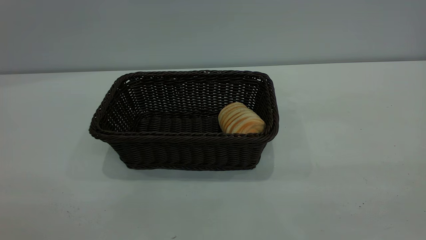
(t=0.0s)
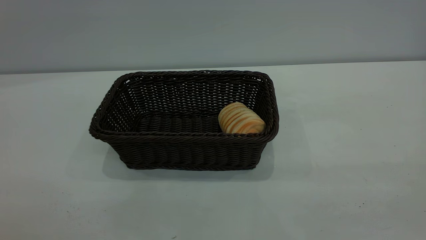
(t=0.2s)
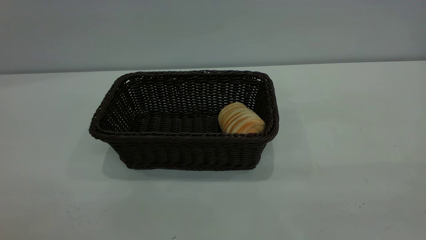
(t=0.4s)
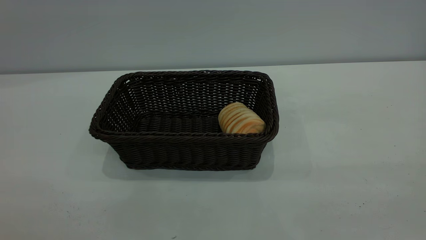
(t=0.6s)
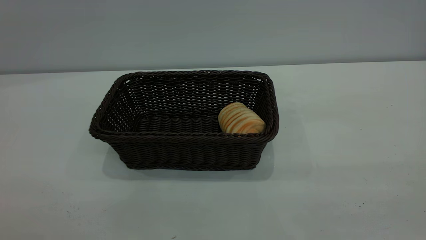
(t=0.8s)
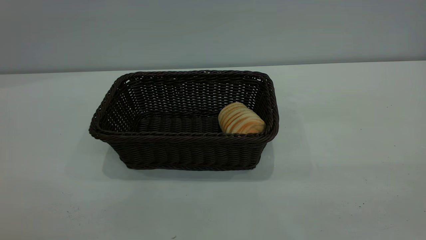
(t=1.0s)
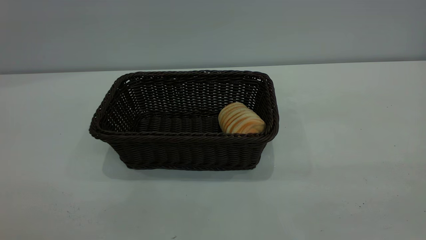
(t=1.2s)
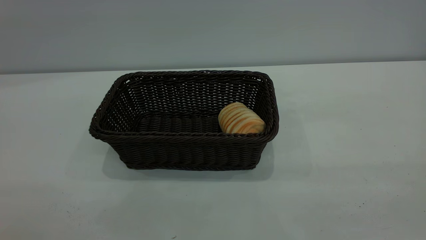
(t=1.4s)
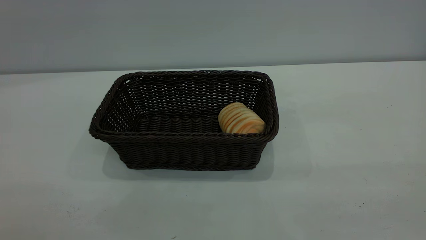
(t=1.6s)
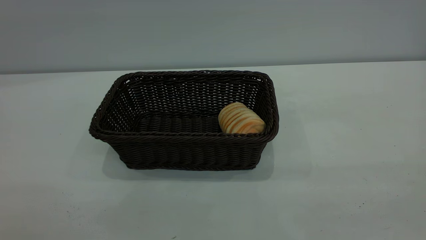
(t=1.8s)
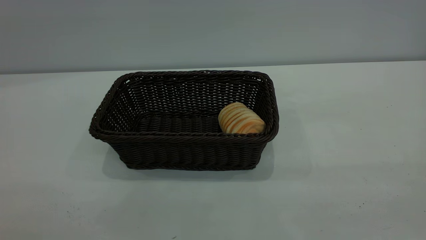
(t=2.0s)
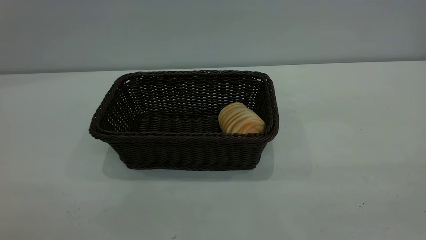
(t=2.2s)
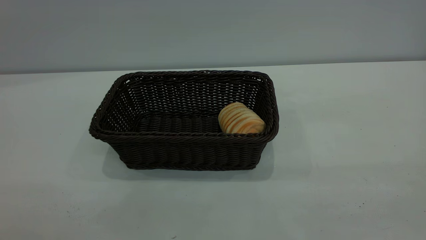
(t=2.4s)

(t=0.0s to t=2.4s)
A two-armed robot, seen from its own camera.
Task of the whole recording: One hand grasps the black basket and places it in the middle of the table, while the other hand picks up the long bread and puts it into the black basket.
t=1.2s - t=2.4s: Both grippers stay about where they are.

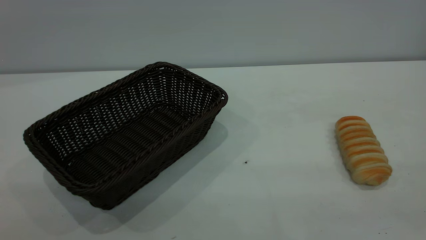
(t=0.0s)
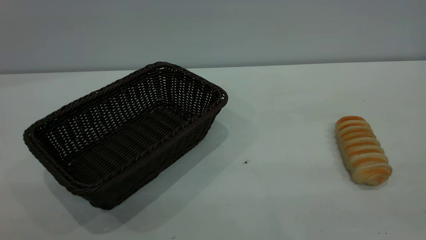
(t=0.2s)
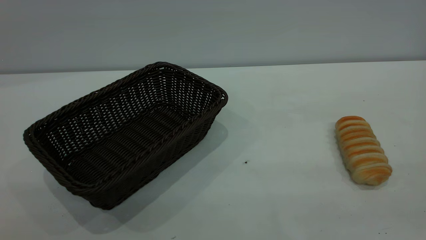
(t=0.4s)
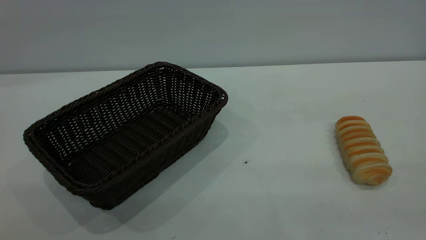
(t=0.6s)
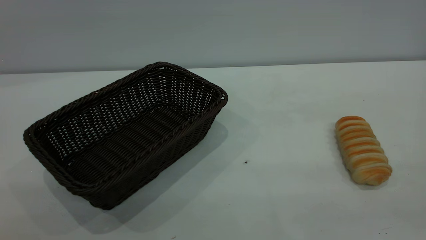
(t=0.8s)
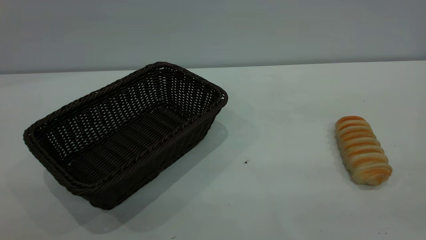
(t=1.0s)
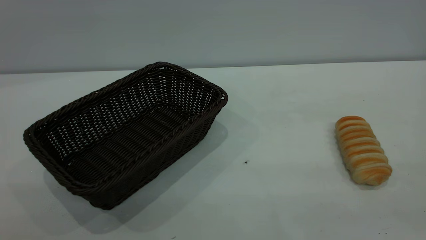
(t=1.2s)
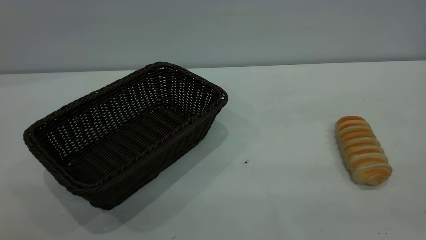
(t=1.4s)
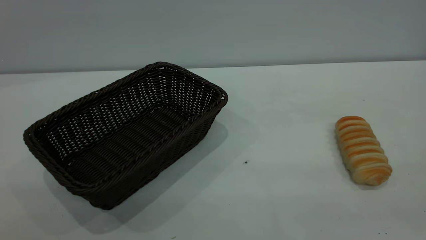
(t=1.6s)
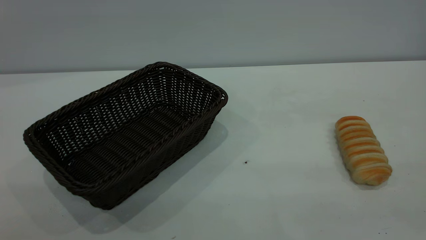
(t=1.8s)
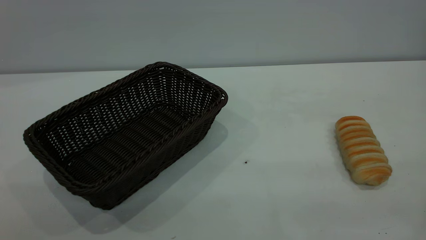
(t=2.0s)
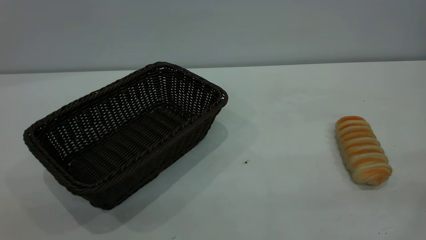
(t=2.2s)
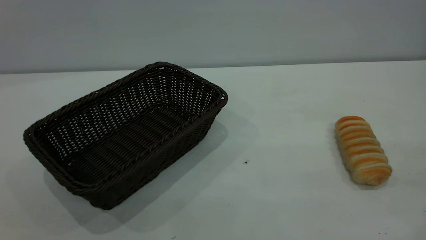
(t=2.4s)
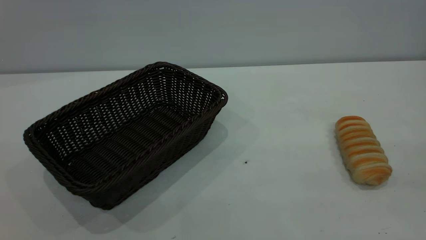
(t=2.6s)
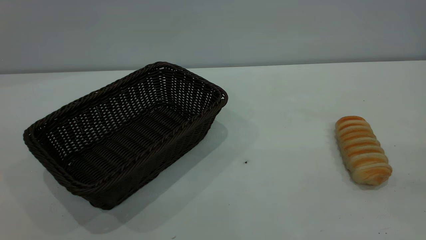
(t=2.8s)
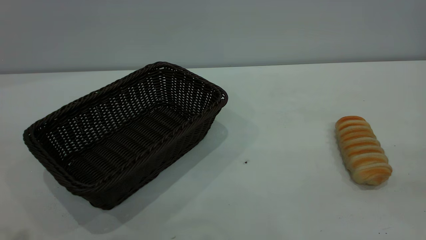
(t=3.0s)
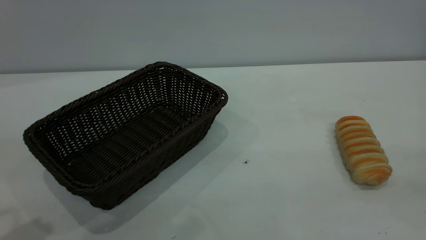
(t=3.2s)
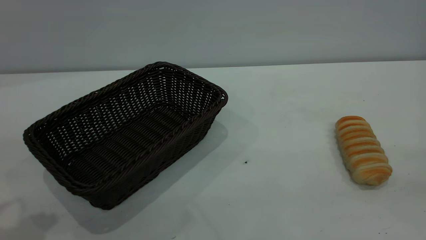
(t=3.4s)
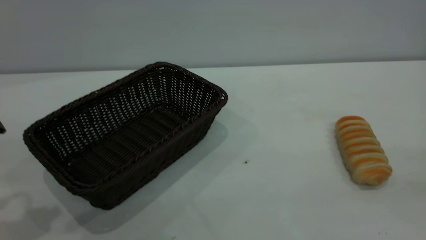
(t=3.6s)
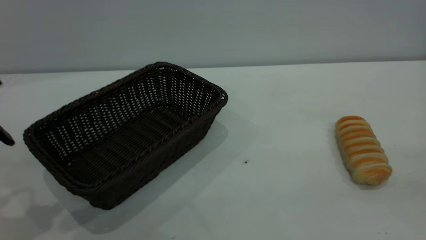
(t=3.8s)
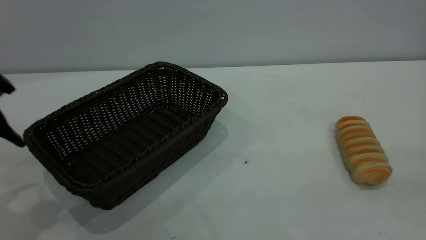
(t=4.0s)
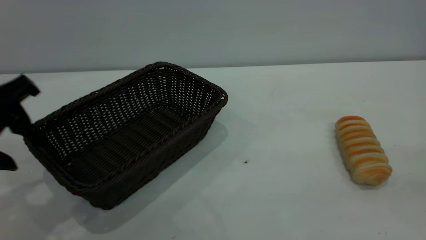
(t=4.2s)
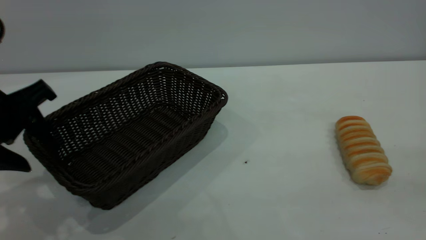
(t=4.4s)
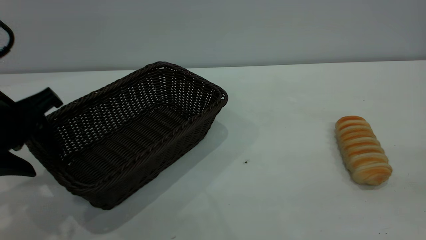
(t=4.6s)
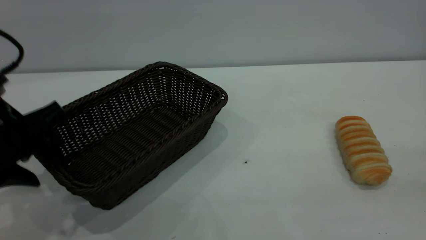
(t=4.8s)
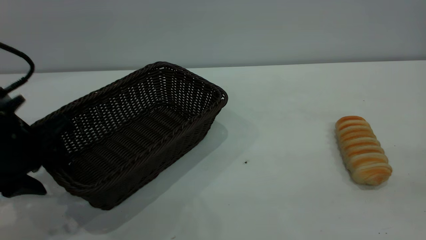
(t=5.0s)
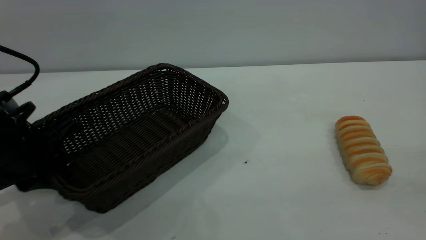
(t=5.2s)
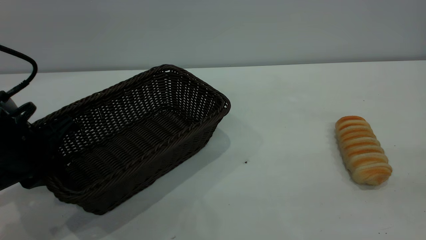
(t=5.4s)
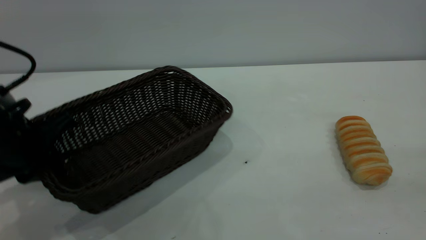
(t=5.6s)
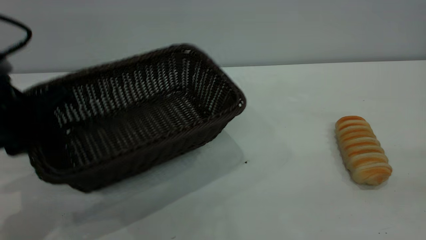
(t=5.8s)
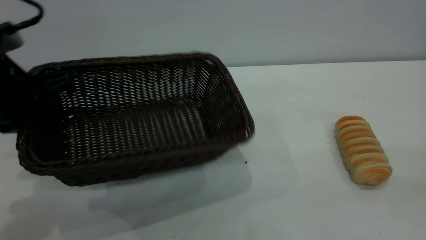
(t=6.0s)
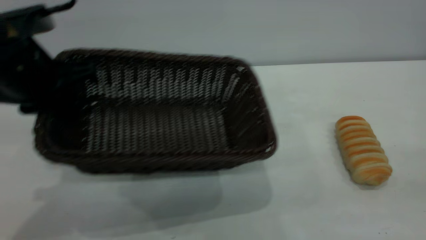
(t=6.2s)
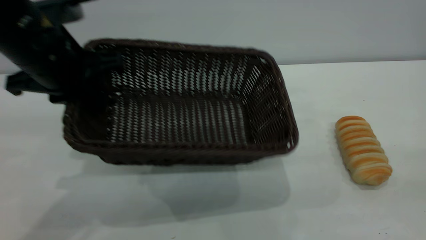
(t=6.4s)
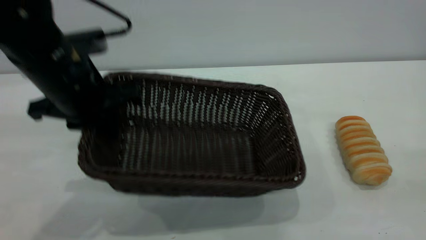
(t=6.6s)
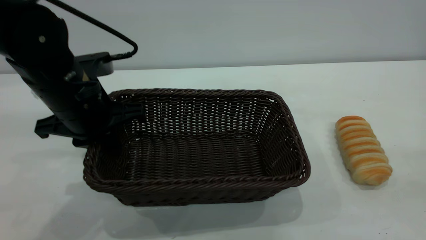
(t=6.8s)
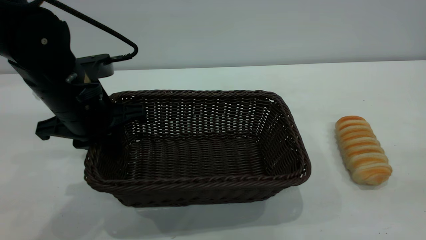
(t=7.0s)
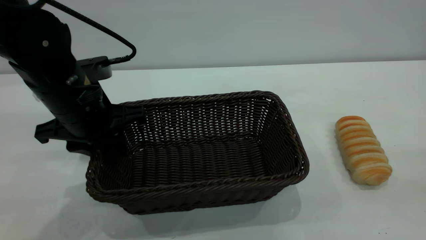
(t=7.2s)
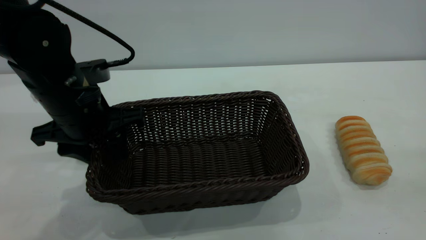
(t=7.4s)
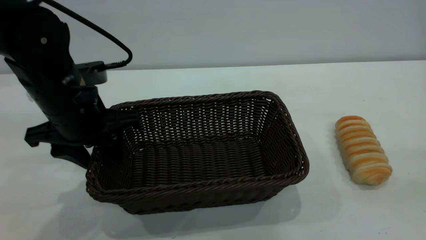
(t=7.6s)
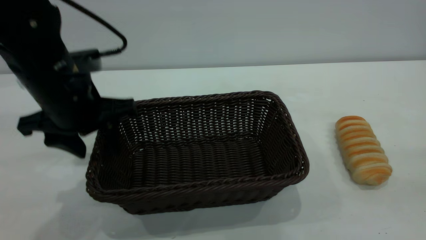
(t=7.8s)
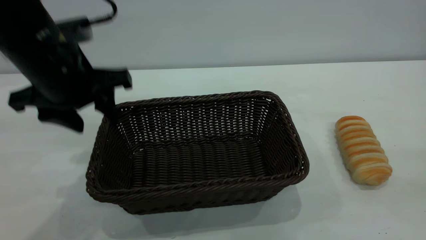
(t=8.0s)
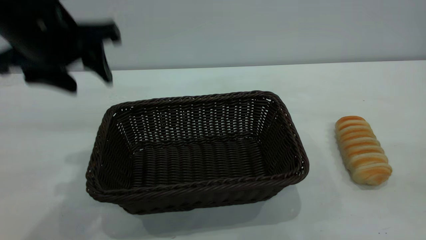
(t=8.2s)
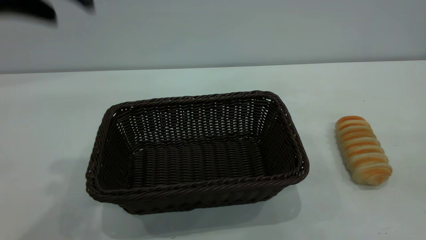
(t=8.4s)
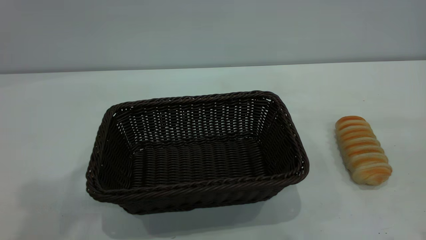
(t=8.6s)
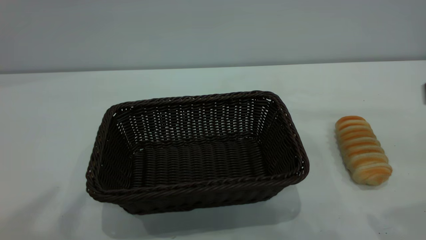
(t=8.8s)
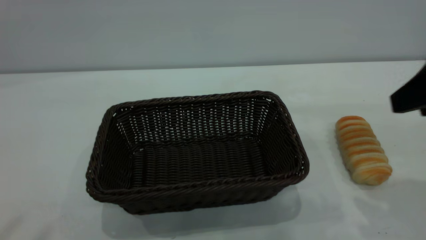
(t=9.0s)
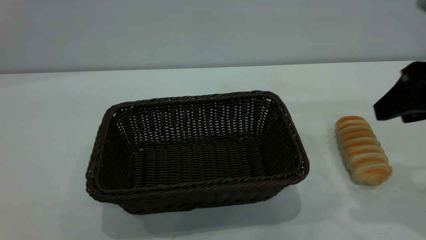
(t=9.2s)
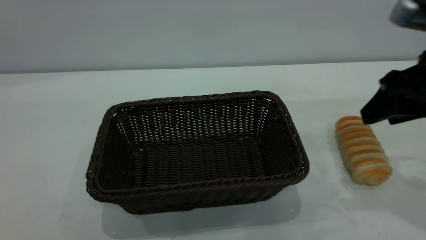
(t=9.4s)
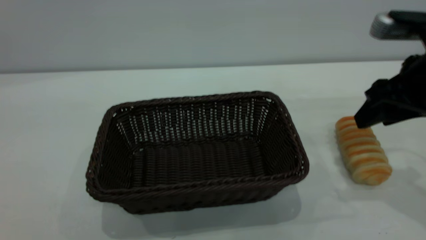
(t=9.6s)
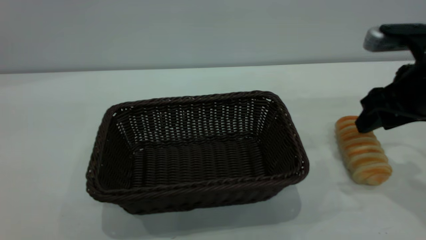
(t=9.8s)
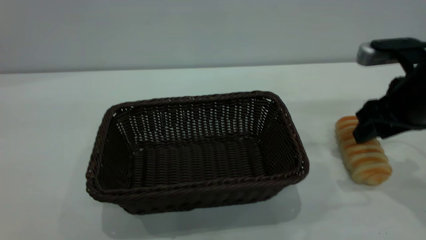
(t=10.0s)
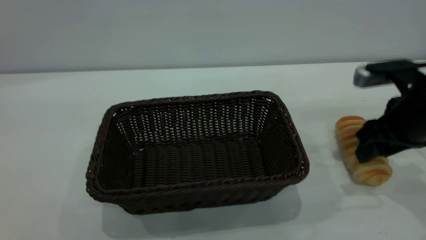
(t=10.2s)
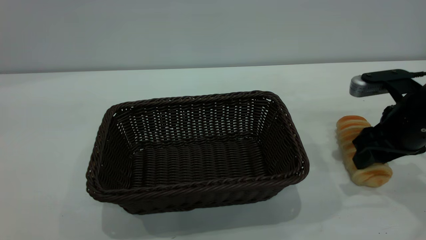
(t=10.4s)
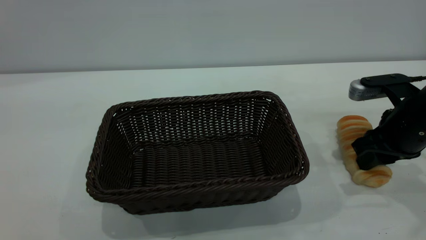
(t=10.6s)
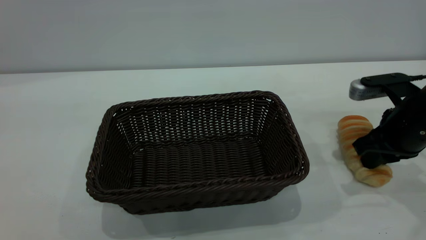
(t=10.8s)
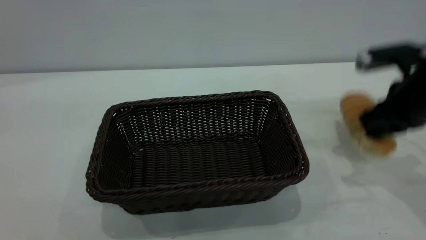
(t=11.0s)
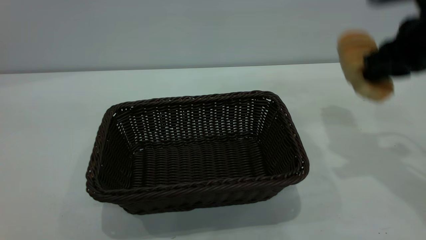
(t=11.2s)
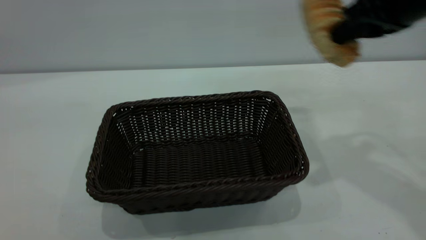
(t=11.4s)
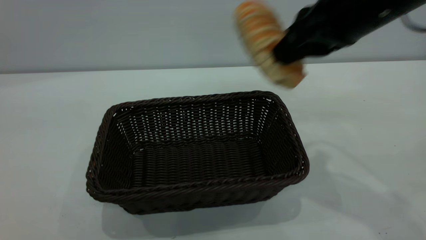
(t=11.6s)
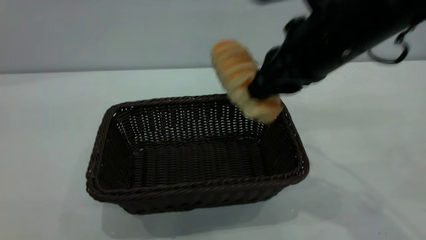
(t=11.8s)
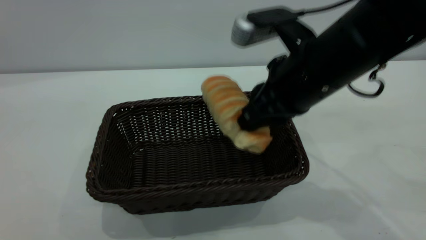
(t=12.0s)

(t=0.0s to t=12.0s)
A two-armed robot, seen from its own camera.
Task of the whole recording: One hand grasps the black basket and places it in the middle of the table, while the other hand picks up the long bread and puts it into the black basket.
Step, t=0.0s - t=8.0s: Move the basket to the center of view.
t=0.0s - t=1.6s: The two grippers keep their place.
t=3.0s - t=4.4s: The left gripper heads downward and forward, covering about 15 cm.
t=4.4s - t=6.0s: The left gripper travels downward and back again, about 5 cm each way, and closes up.
t=6.0s - t=7.6s: The left gripper is displaced to the right and downward by approximately 10 cm, and opens up.
t=7.6s - t=9.0s: The right gripper goes roughly 25 cm forward and downward. Meanwhile the left gripper moves upward and backward, roughly 40 cm.
t=9.0s - t=10.4s: The right gripper shifts approximately 15 cm downward and forward.
t=10.4s - t=12.0s: The right gripper is displaced to the left and upward by approximately 20 cm, and closes.

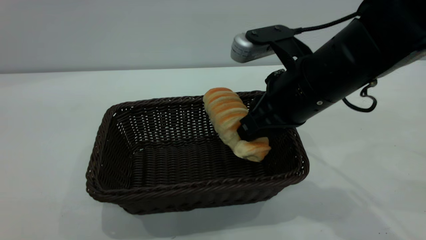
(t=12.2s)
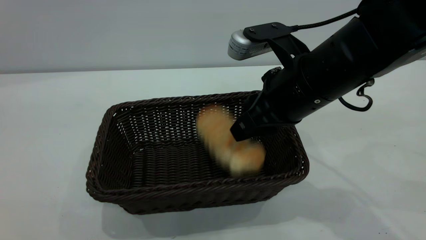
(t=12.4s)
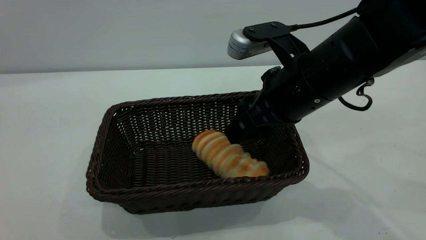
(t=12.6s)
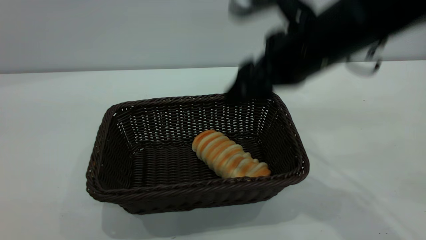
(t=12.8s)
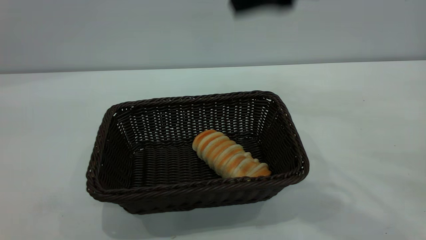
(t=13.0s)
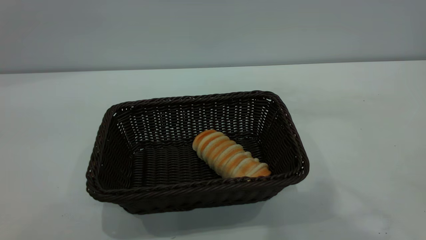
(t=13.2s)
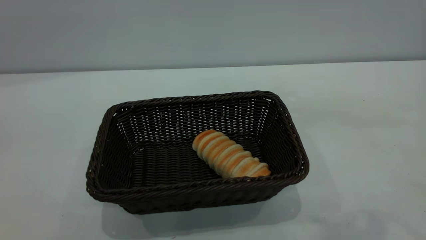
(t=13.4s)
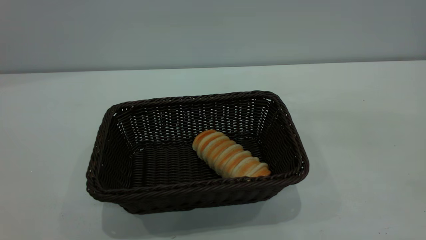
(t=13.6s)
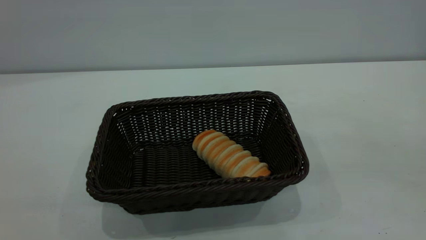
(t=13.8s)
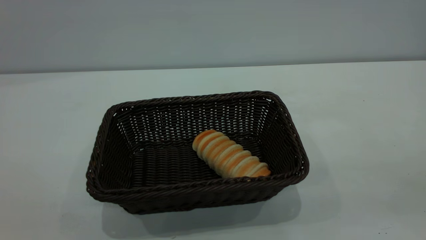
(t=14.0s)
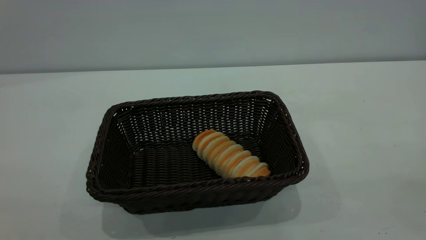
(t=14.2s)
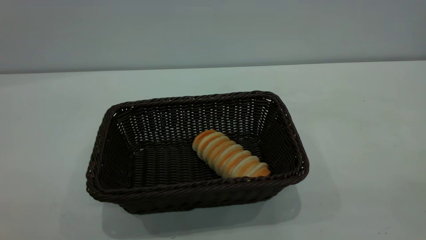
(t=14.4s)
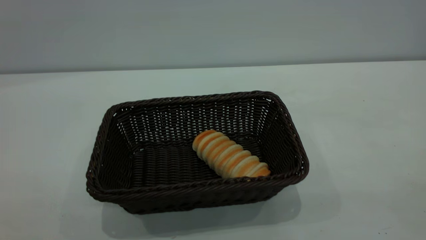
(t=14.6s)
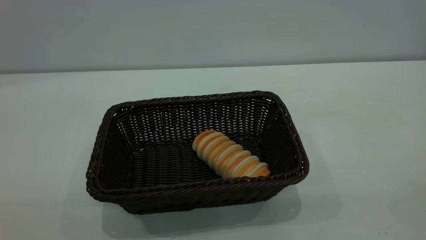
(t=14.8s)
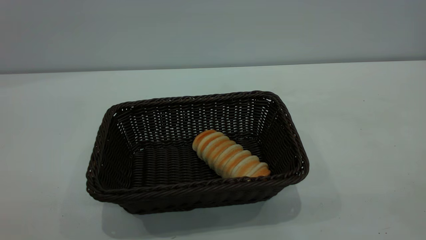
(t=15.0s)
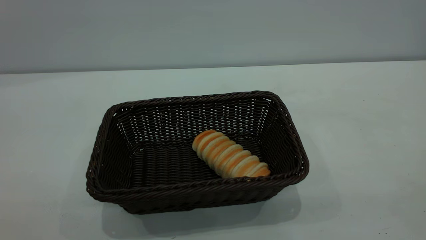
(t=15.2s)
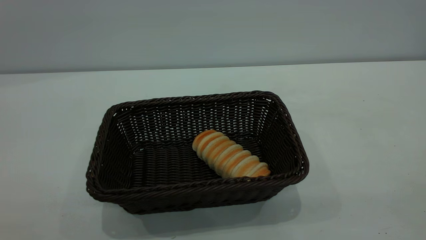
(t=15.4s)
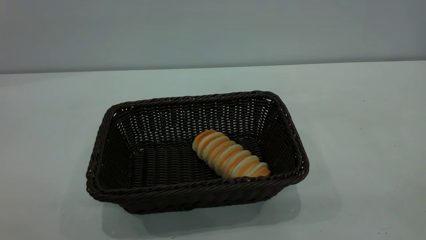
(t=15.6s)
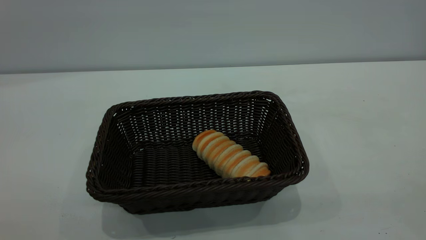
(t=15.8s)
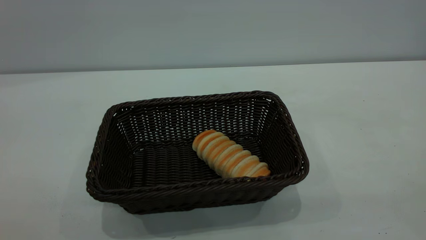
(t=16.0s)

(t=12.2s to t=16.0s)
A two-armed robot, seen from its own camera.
Task of the whole recording: One hand grasps the black basket and places it in the middle of the table, while the other hand picks up the long bread and puts it into the black basket.
t=12.2s - t=13.4s: The right gripper heads upward and backward, covering some 30 cm, and opens.
